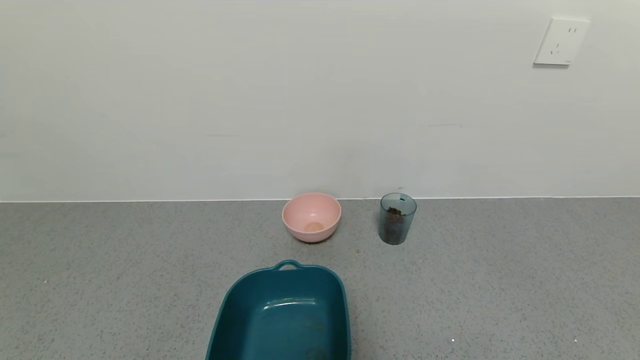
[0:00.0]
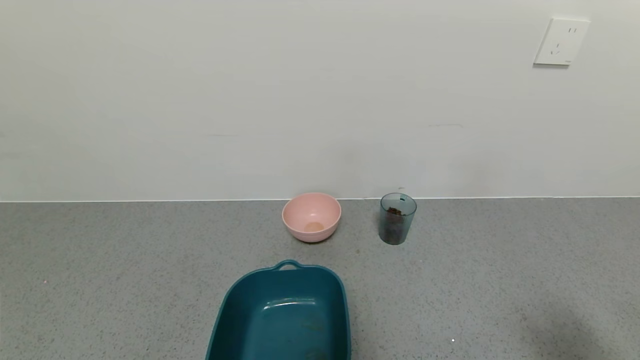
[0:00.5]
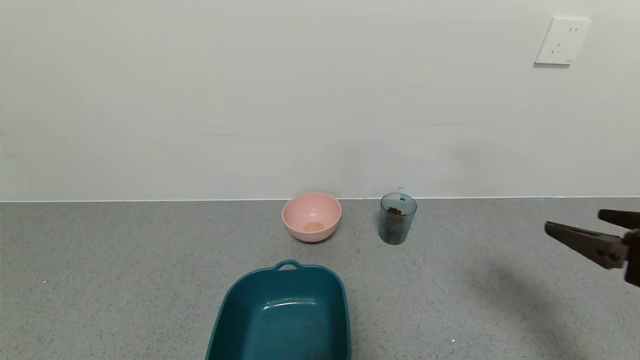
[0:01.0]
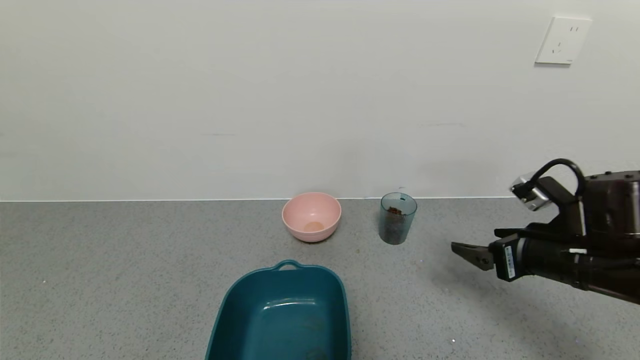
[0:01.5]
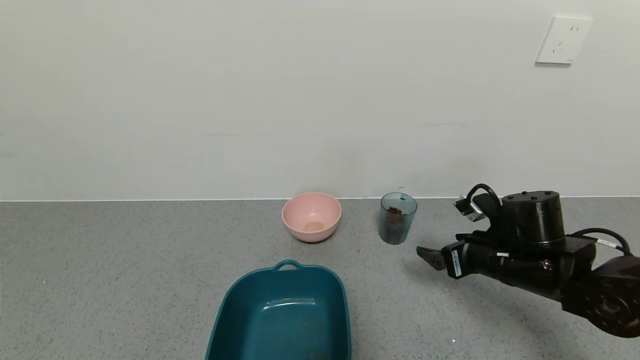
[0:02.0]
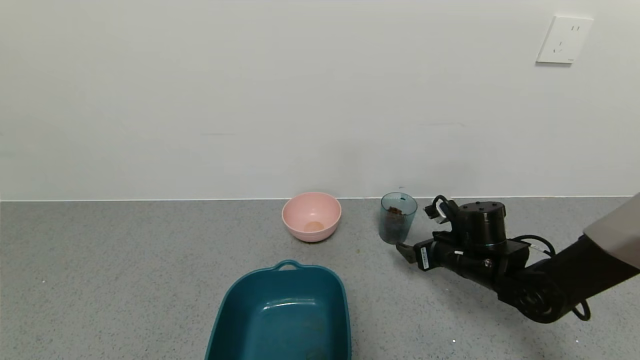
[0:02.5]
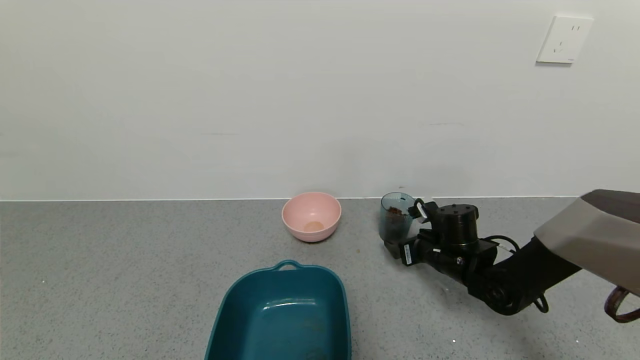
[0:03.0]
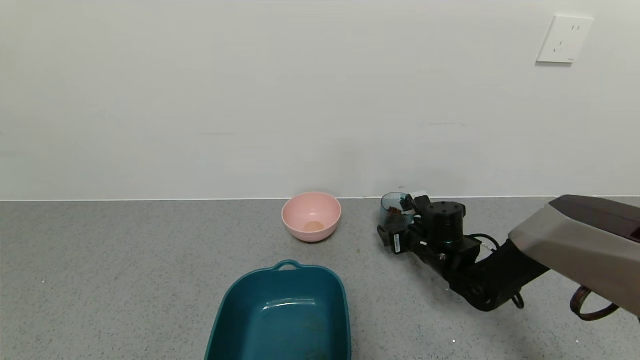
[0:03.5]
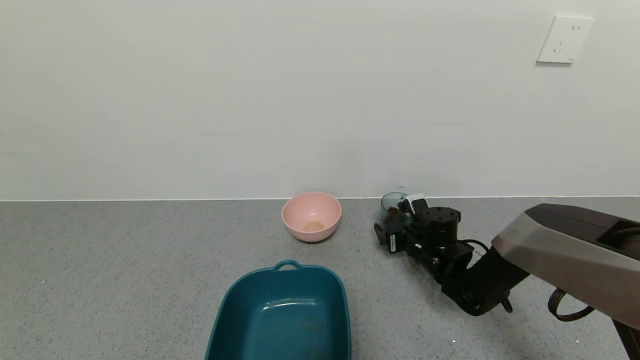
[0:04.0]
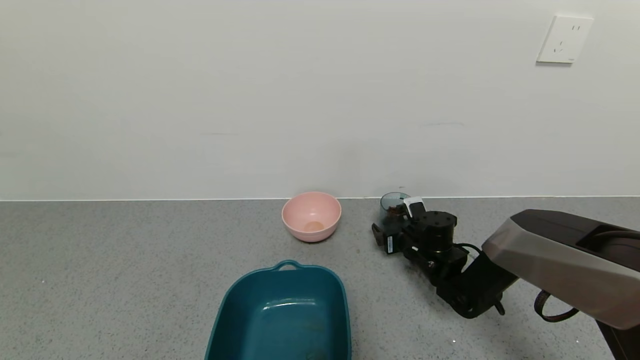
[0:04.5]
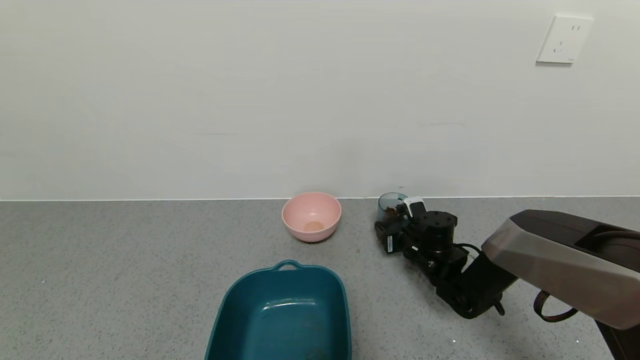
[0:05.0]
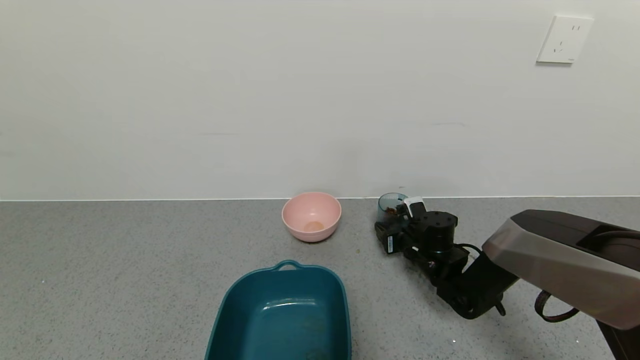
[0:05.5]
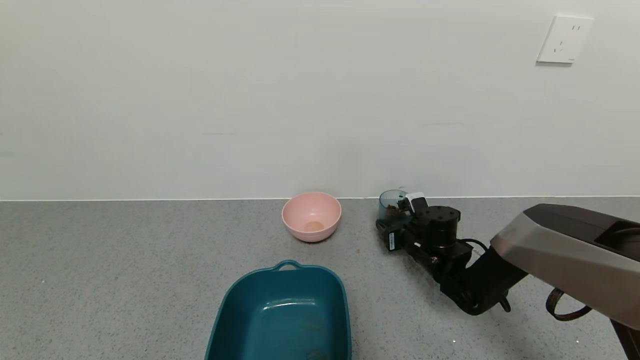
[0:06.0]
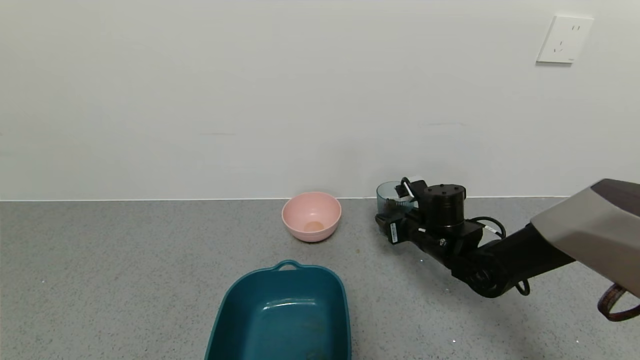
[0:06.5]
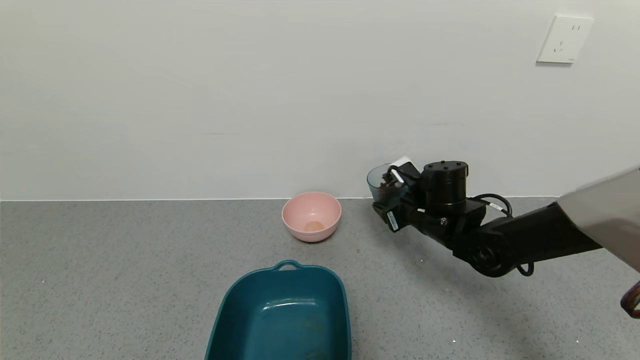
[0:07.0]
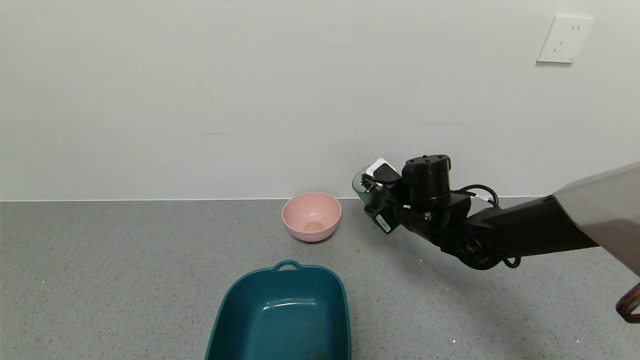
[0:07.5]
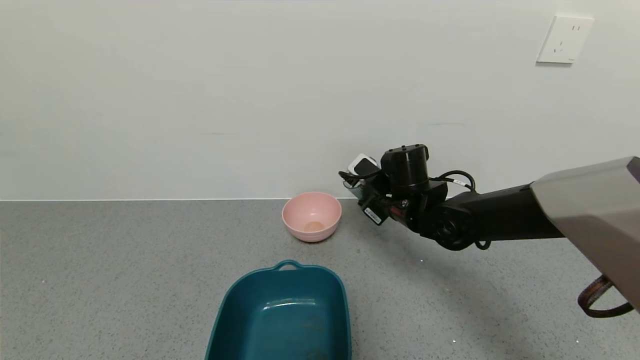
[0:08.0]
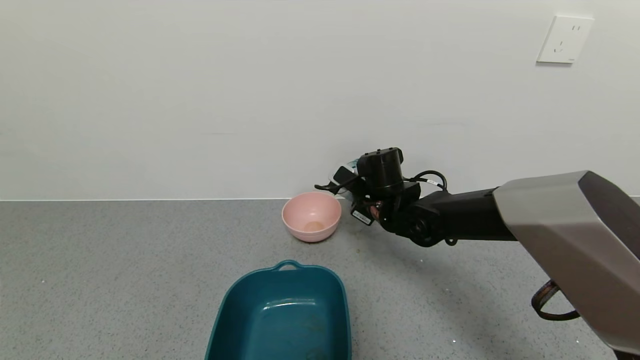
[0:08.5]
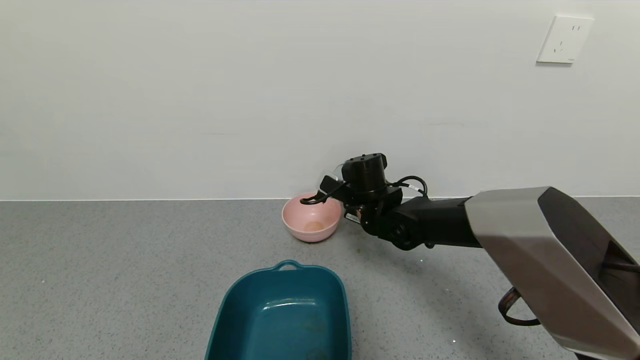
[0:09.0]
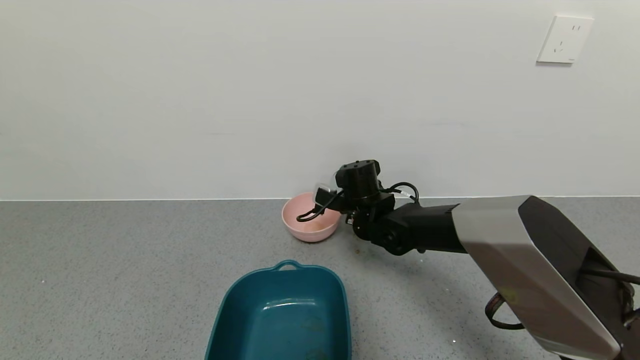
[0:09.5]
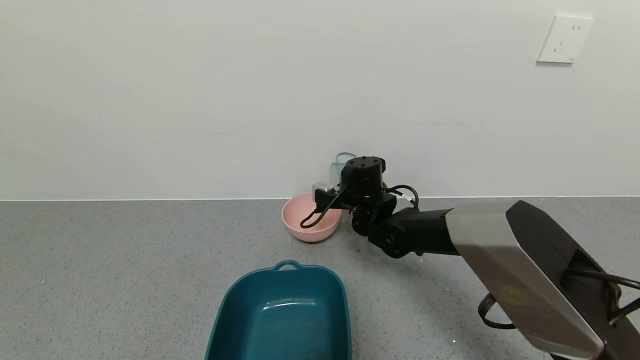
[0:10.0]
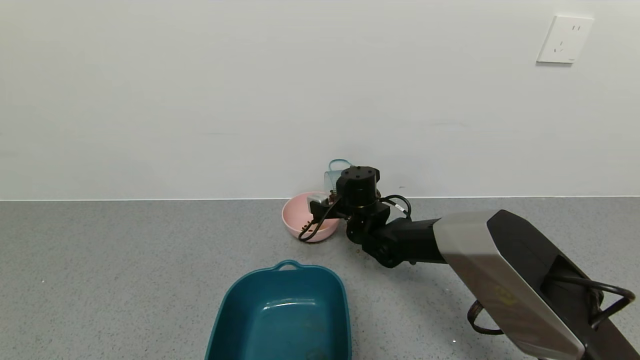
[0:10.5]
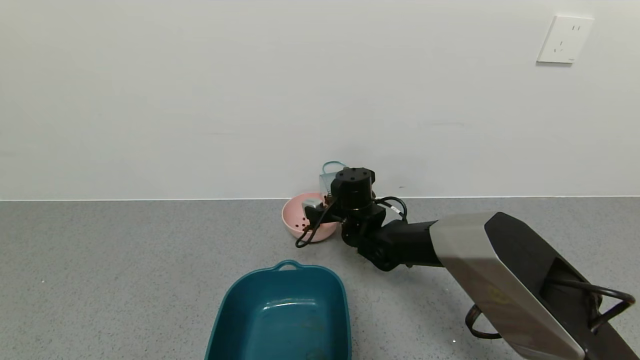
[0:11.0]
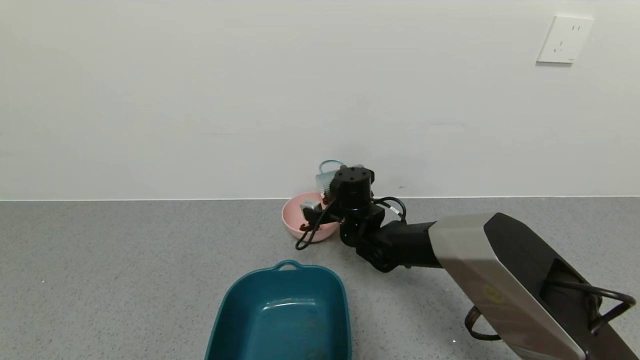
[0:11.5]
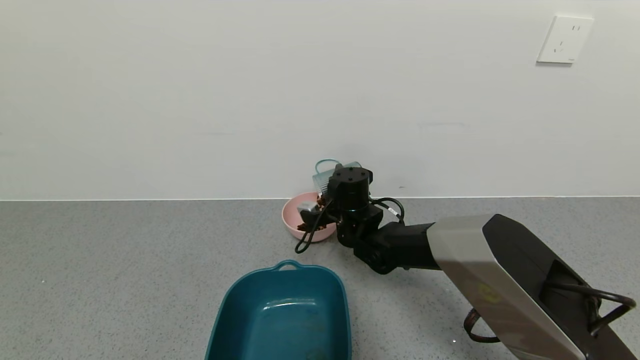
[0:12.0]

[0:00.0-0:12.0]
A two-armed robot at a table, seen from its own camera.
Task of the whole recording: use a gripper to pick up the cup and pour the solid into a bowl or tray.
Step, 0:00.0 to 0:05.5: Grasp the glass of coffee beans with the right gripper.
0:00.0 to 0:02.0: The right gripper shifts some 30 cm forward.
0:02.0 to 0:04.0: The right gripper heads forward, downward and to the left, covering about 15 cm.
0:04.0 to 0:06.0: The right gripper closes its fingers.
0:06.0 to 0:08.0: The right gripper travels upward and to the left by some 15 cm.
0:08.0 to 0:10.0: The right gripper travels to the left by roughly 5 cm.
0:10.0 to 0:12.0: The grippers stay close to where they were, moving slightly.

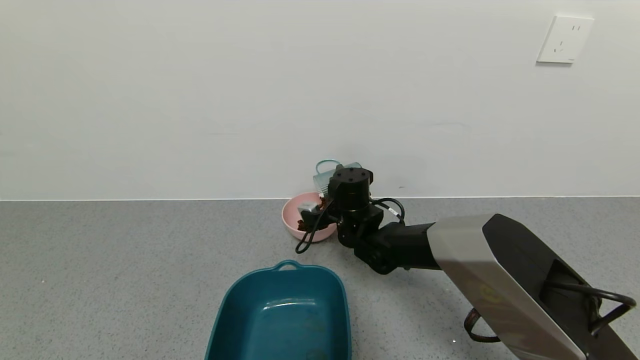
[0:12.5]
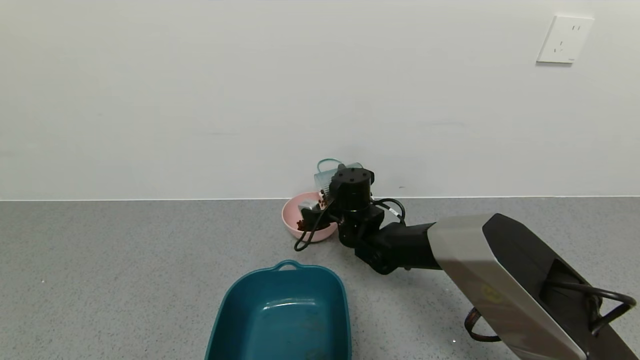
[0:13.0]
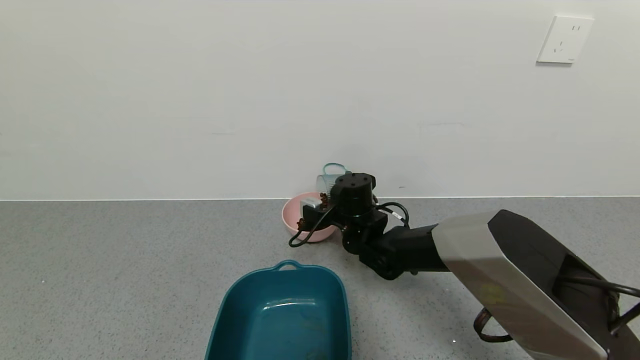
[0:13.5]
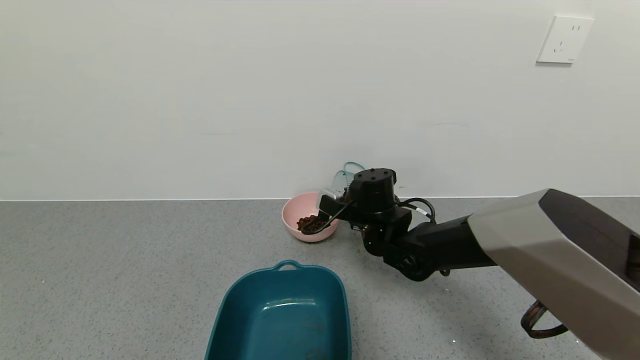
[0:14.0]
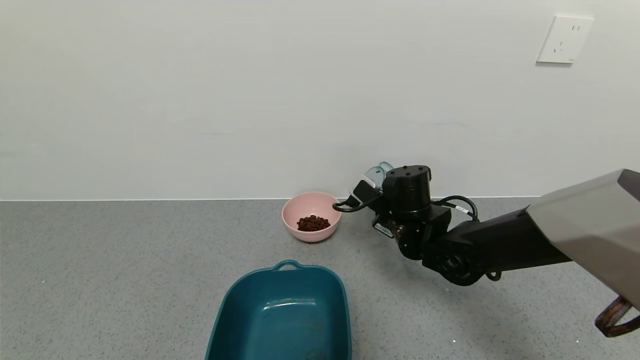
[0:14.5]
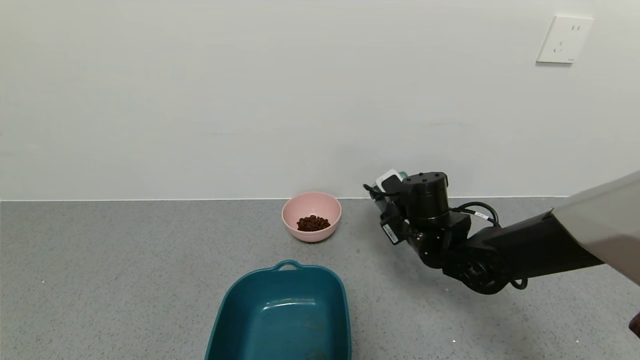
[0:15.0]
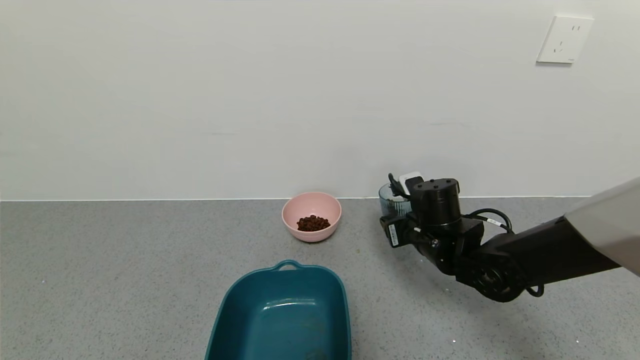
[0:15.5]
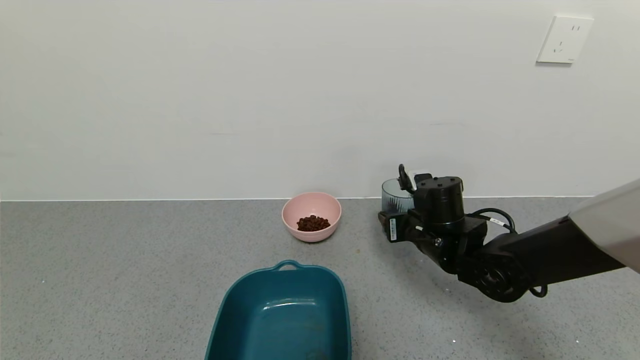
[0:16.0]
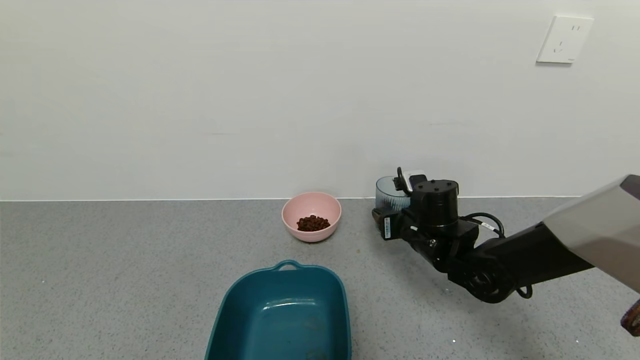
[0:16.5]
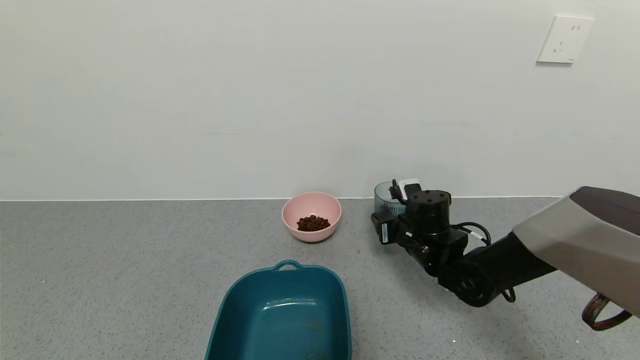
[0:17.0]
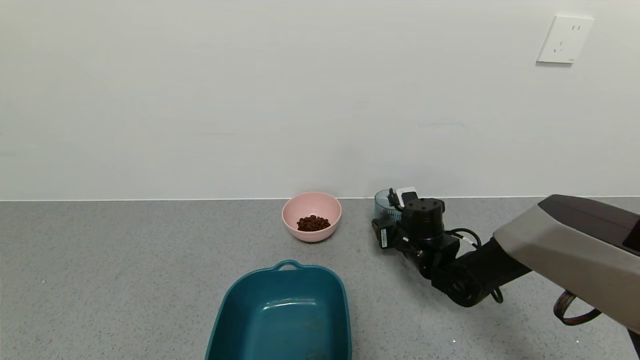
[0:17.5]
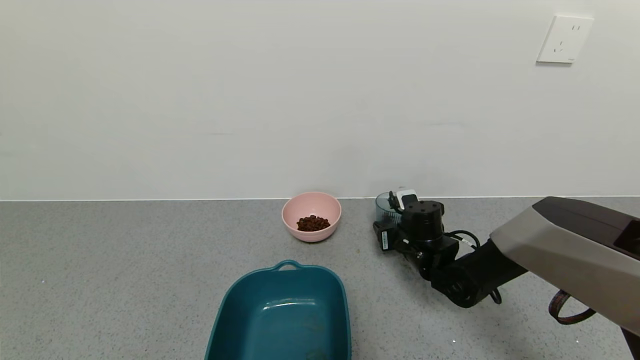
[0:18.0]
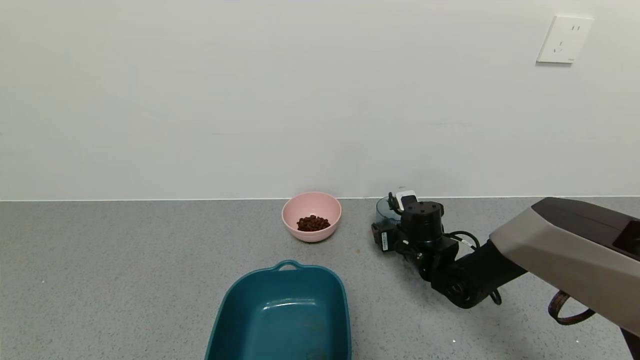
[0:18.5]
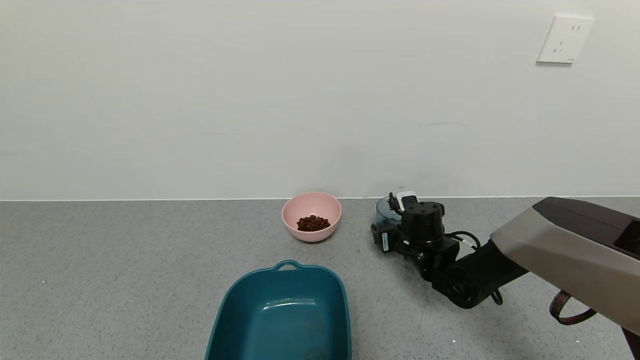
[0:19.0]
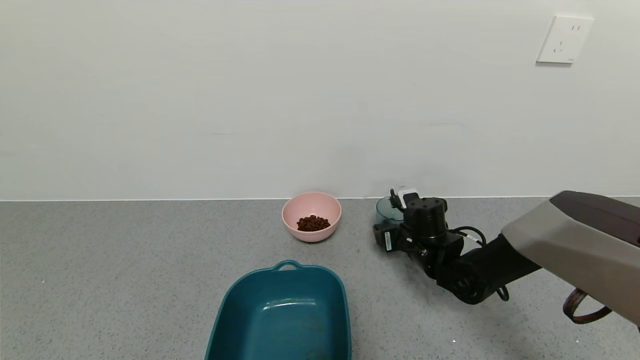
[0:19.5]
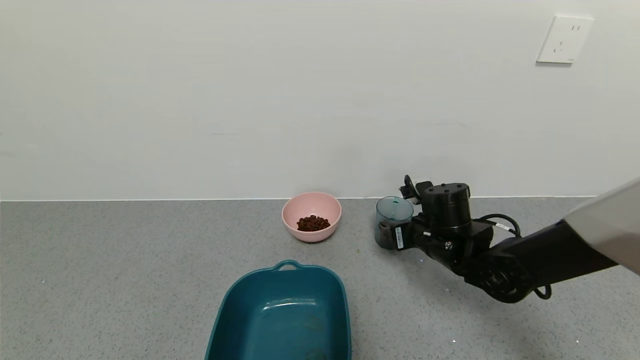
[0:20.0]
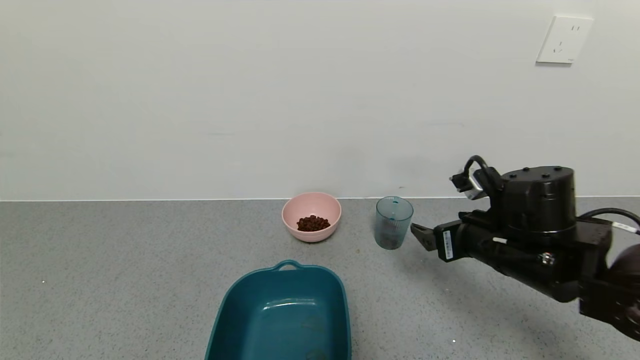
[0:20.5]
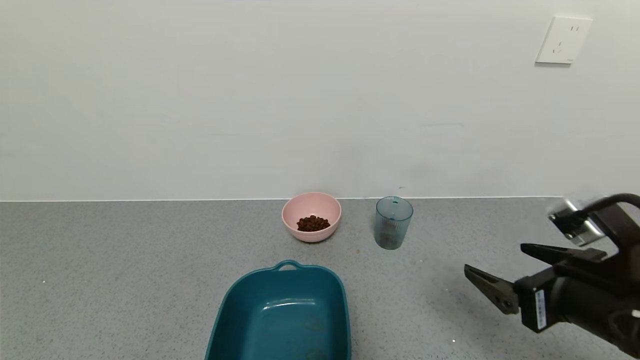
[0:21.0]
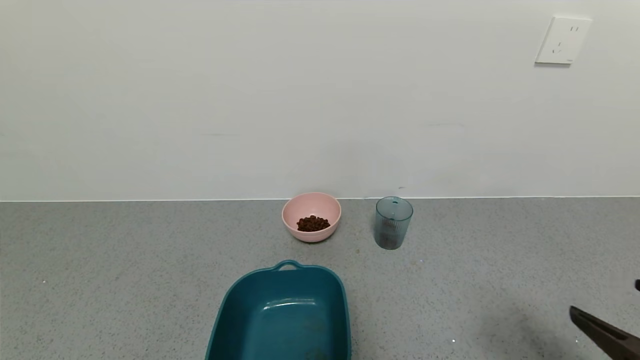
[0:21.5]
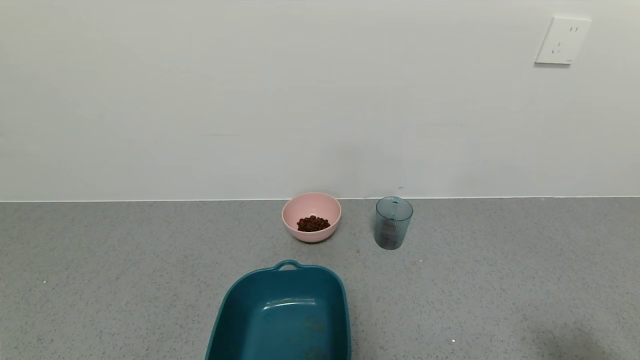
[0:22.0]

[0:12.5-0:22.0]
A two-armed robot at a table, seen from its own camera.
Task of the whole recording: use a gripper to pick up the cup and pour the solid into a bowl or tray.
Step, 0:12.5 to 0:14.5: Pour the coffee beans into the pink bowl with the right gripper.
Step, 0:15.0 to 0:20.0: Place the glass cup with the right gripper.
0:12.5 to 0:14.5: The right gripper shifts some 10 cm to the right and backward.
0:16.5 to 0:18.0: The right gripper shifts approximately 5 cm downward.
0:18.0 to 0:20.0: The right gripper is displaced upward by approximately 5 cm, and opens.
0:20.0 to 0:22.0: The right gripper shifts some 35 cm backward and to the right.
